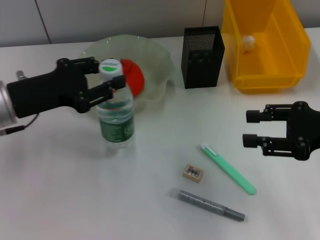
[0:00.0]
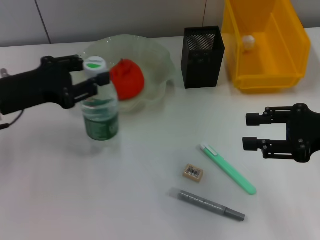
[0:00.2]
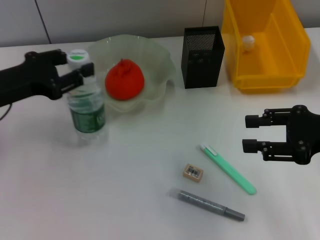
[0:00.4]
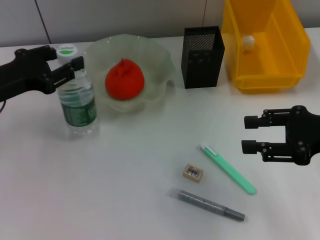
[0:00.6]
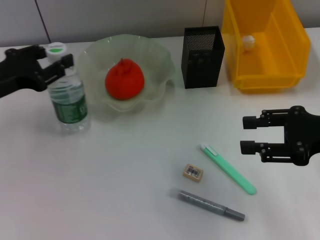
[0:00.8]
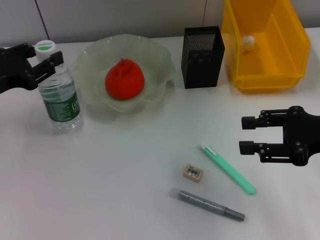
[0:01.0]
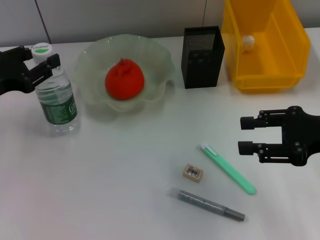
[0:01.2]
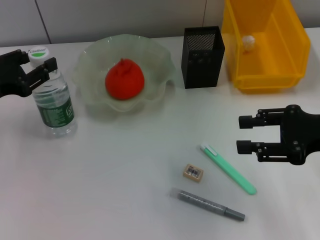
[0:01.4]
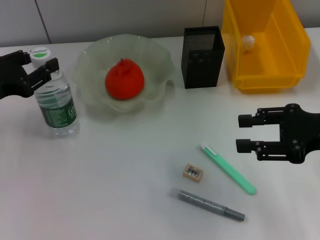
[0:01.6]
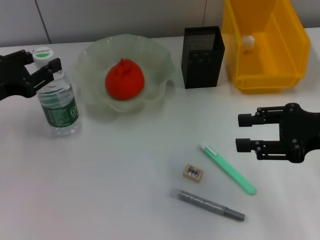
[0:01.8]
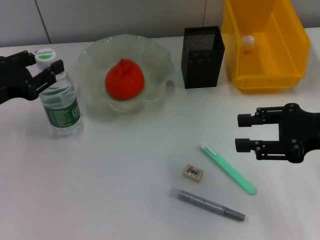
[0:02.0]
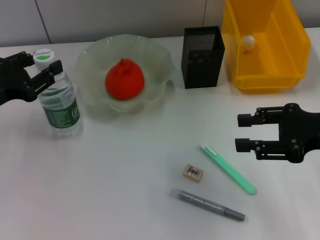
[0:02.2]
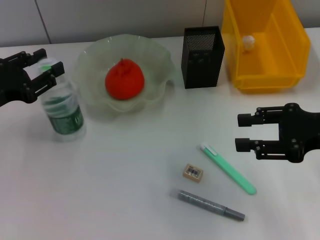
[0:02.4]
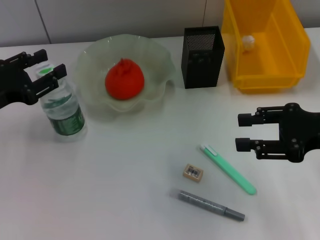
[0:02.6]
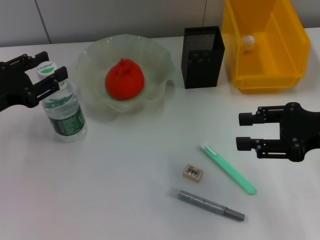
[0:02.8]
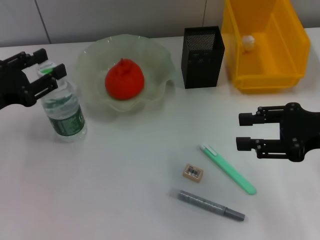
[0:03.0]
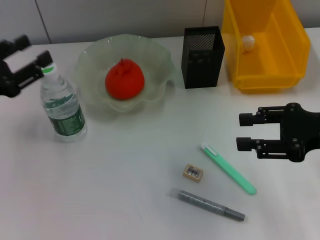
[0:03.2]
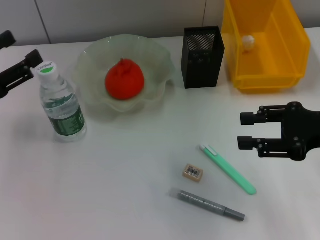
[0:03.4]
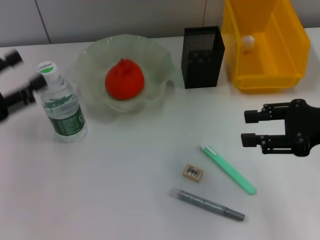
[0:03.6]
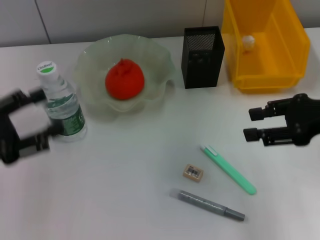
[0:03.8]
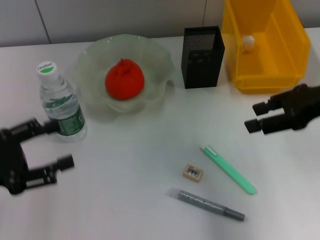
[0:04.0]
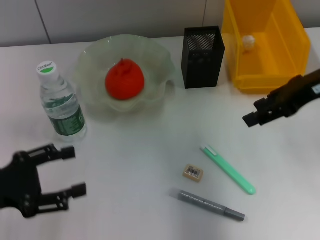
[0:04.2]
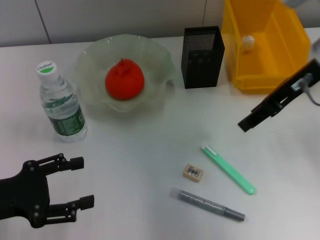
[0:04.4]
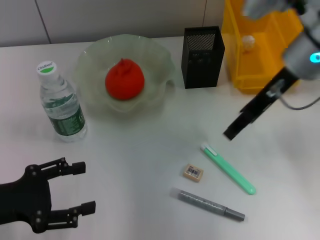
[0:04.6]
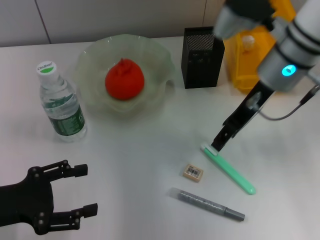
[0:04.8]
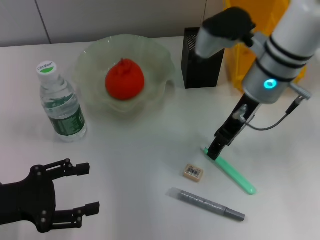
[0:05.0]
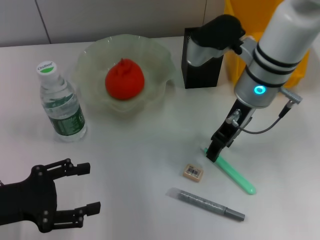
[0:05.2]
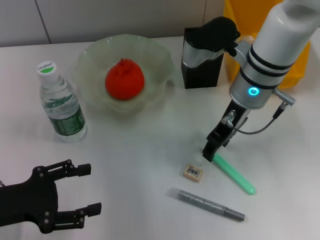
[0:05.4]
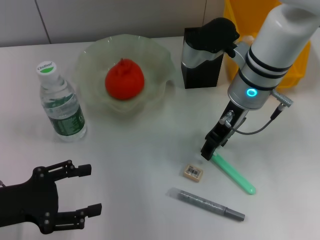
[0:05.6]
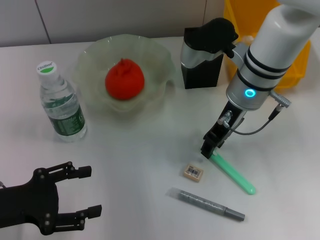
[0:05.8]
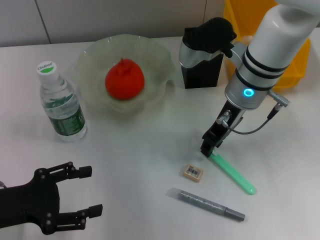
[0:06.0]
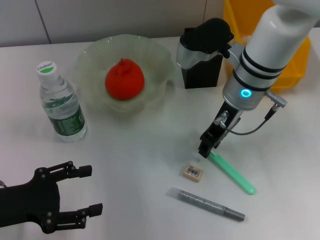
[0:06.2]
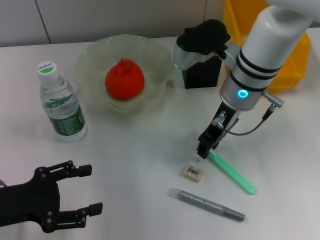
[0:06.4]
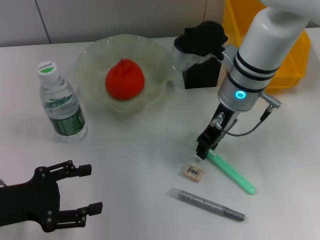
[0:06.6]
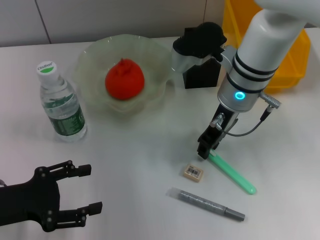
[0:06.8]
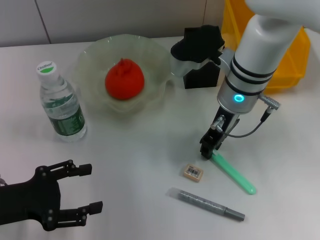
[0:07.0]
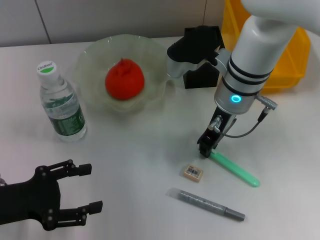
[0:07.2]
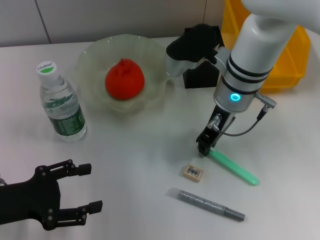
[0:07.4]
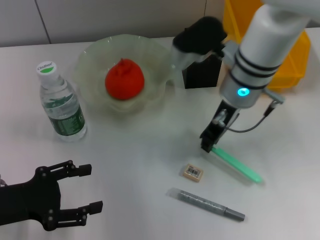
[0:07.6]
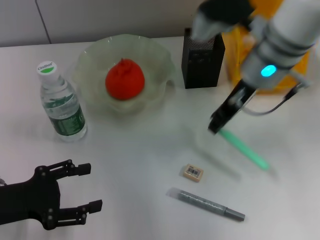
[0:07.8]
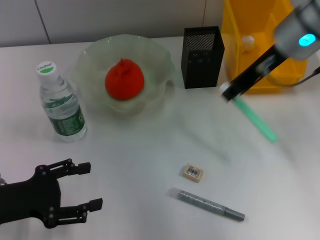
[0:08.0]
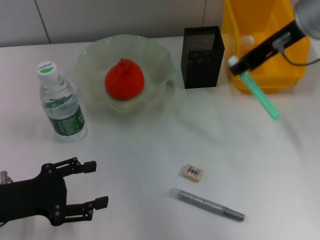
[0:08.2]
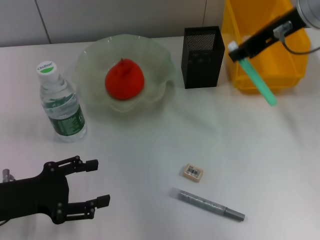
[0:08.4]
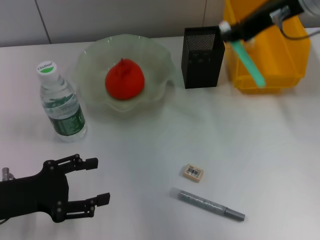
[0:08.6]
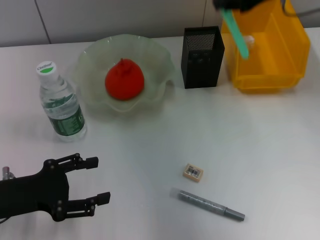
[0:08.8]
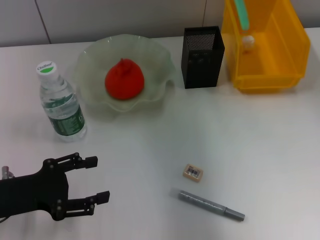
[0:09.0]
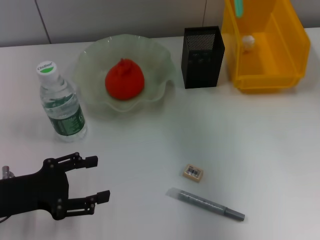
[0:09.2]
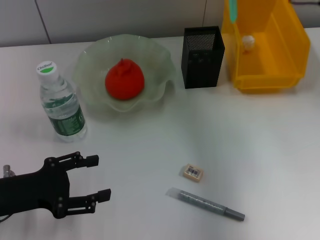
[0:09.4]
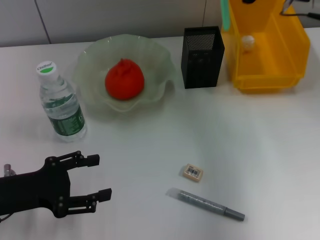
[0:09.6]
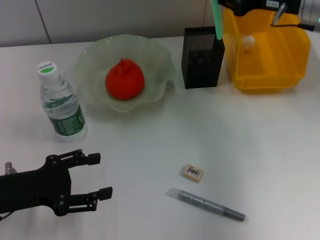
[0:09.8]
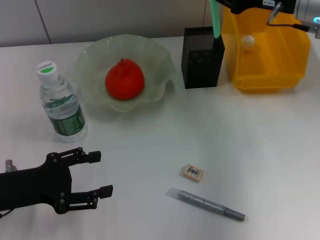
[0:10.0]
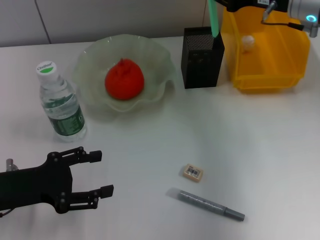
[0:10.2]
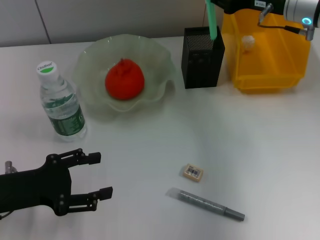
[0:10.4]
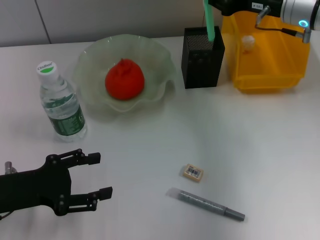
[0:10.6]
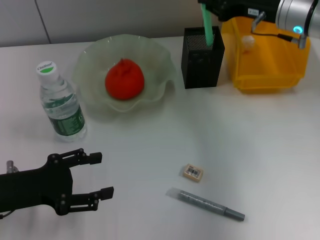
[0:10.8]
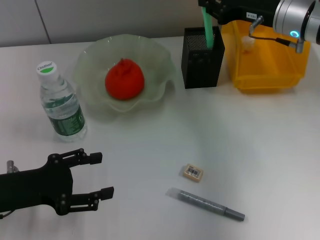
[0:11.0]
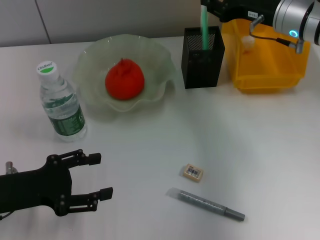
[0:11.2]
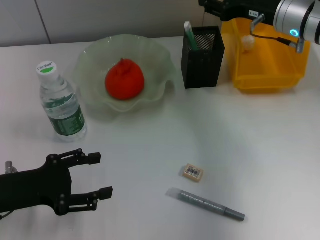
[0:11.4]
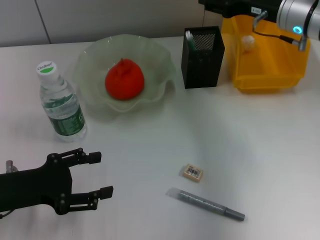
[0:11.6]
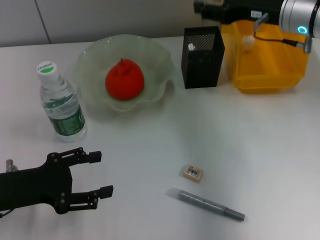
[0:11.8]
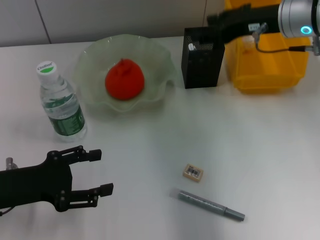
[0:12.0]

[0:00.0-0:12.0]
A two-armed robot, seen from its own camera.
Step, 0:00.0 to 0:02.6: Place the water bottle on the table with the left hand.
Step, 0:02.8 to 0:07.2: Grab the blue utility knife with the right hand.
Step, 0:07.6 to 0:11.4: Place the blue utility knife into the pen holder with the right hand.
0:00.0 to 0:01.6: The left gripper is displaced to the left by roughly 10 cm.
0:01.6 to 0:03.0: The grippers move only a little.
0:03.0 to 0:04.4: The right gripper moves forward, upward and to the left, about 15 cm, while the left gripper is displaced backward by approximately 10 cm.
0:04.4 to 0:06.0: The right gripper moves to the left and downward, about 10 cm.
0:06.0 to 0:07.6: The right gripper closes up.
0:07.6 to 0:09.0: The right gripper is displaced to the right and upward by about 20 cm.
0:09.0 to 0:10.4: The right gripper moves downward, about 10 cm.
0:10.4 to 0:12.0: The right gripper moves about 5 cm, and opens its fingers.

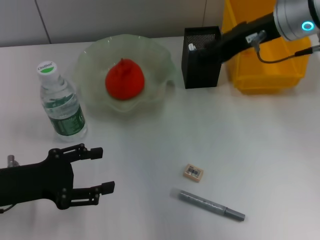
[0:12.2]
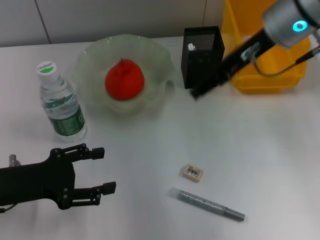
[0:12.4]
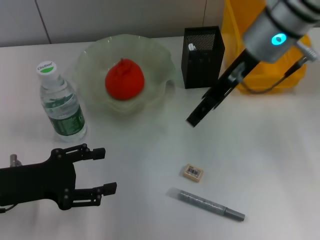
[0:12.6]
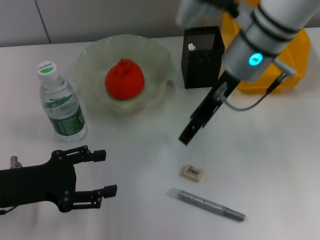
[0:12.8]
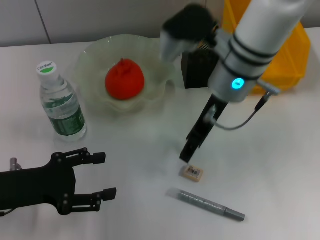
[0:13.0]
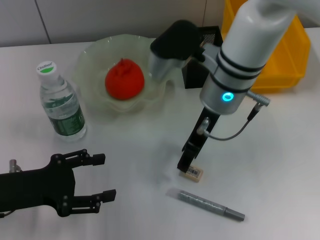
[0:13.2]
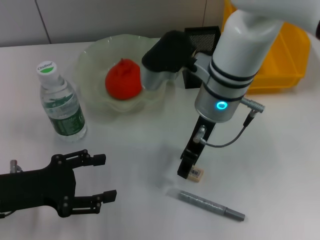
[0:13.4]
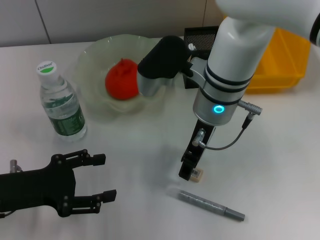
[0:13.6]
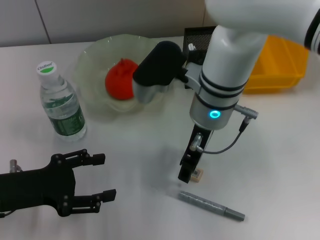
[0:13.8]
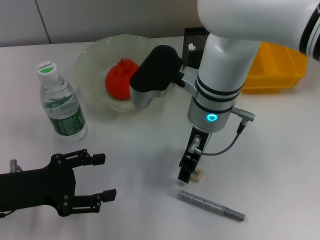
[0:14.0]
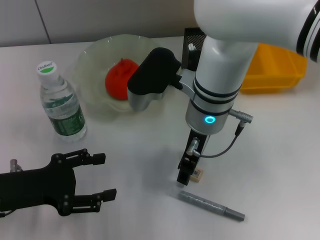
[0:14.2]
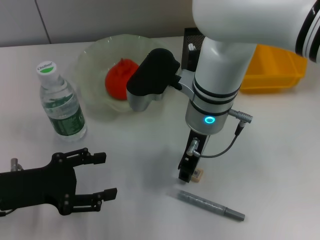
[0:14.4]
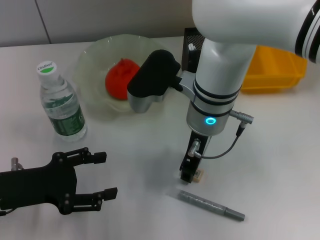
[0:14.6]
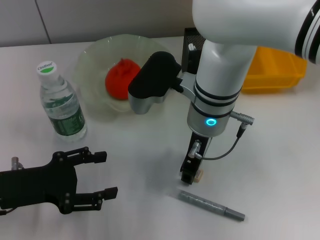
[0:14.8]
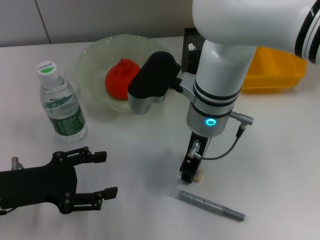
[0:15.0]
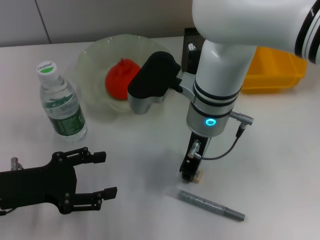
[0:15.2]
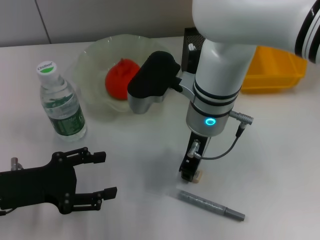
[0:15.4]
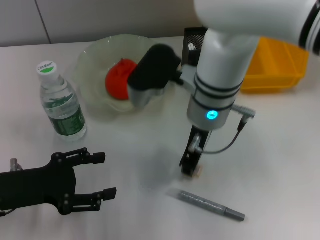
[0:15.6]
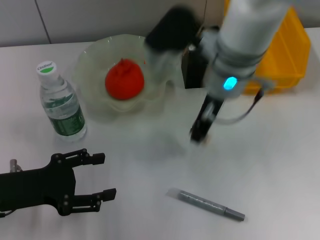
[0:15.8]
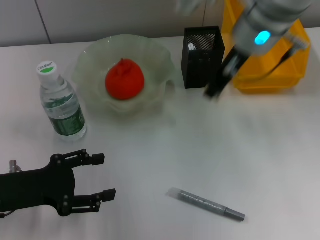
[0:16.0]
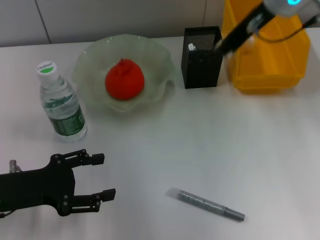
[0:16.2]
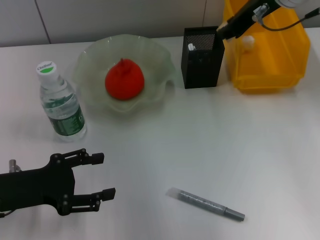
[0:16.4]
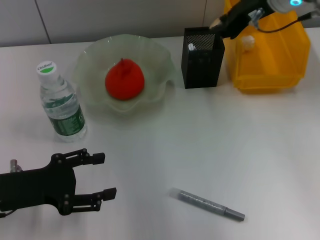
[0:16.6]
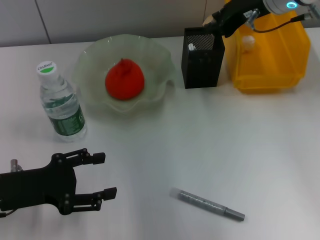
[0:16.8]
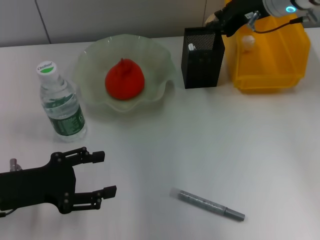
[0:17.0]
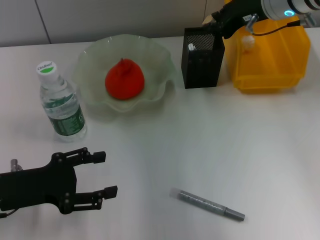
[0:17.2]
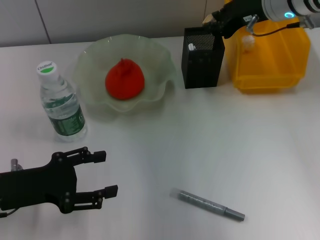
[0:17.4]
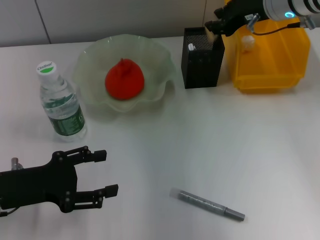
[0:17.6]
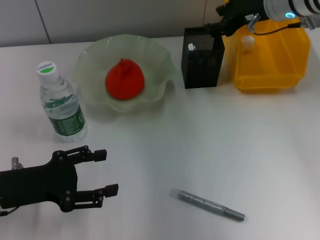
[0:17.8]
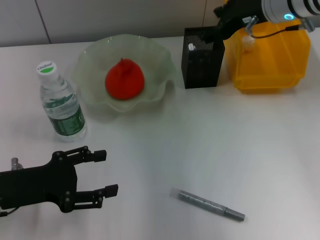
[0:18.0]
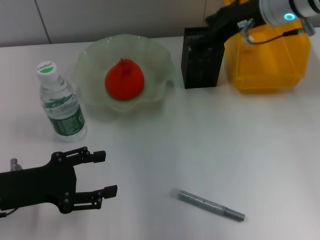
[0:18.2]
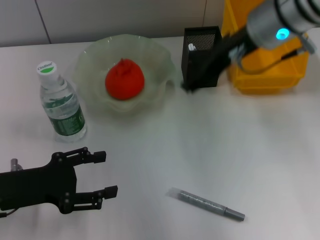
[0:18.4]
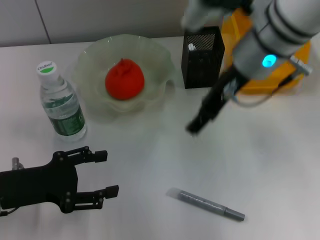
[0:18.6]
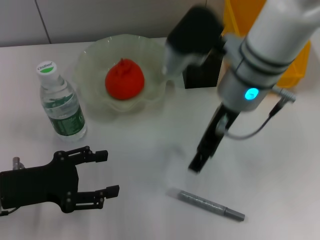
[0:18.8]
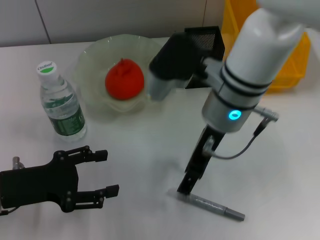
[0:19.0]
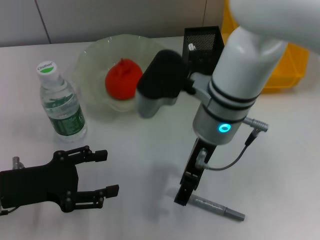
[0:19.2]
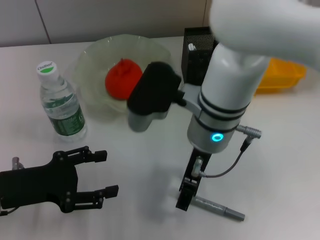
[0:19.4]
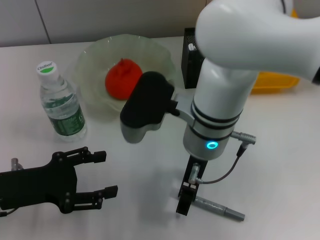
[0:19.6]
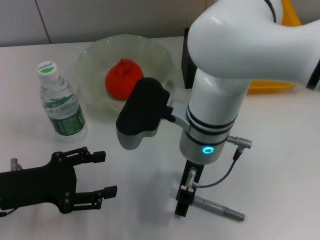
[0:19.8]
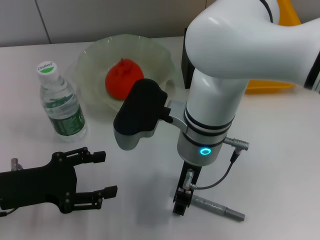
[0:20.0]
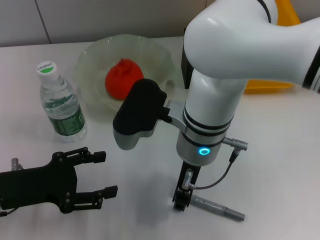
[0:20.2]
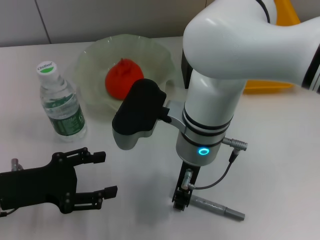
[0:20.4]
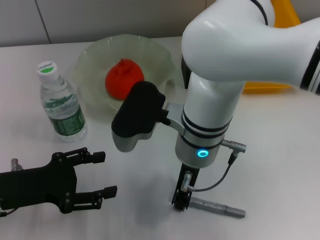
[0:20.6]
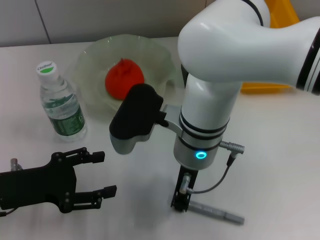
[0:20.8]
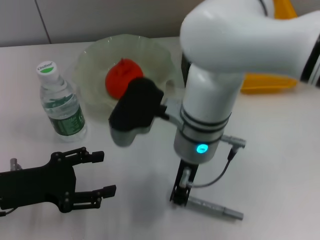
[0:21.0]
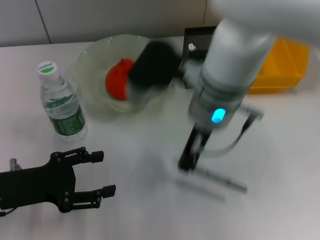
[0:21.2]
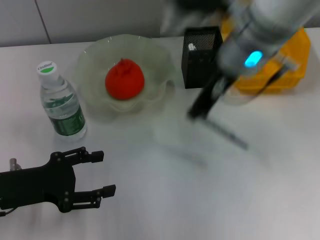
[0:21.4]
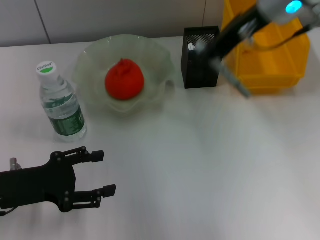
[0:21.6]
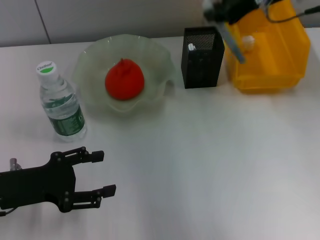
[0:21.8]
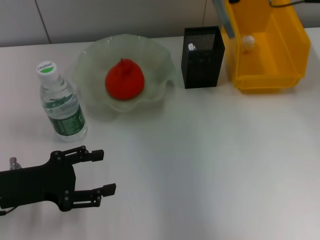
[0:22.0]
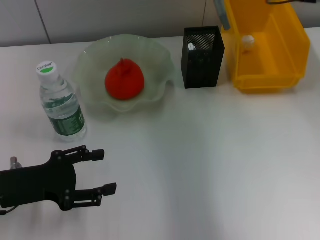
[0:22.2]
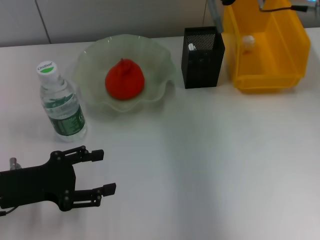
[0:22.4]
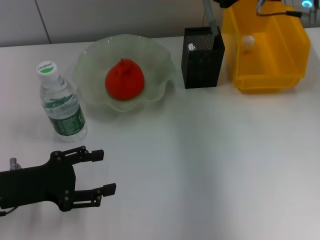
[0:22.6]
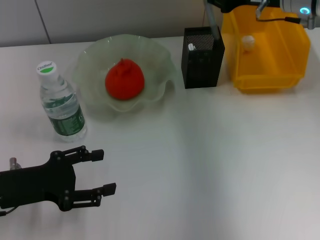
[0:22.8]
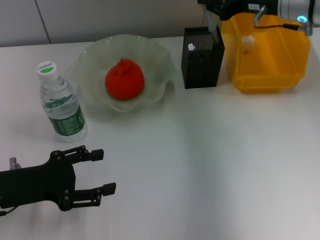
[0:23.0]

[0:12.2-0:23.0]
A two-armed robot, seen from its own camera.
Step, 0:12.2 to 0:15.4: Grab the eraser with the right hand.
Step, 0:15.6 to 0:17.8: Put the eraser into the pen holder with the right hand.
Step, 0:18.0 to 0:20.8: Grab the gray glue with the right hand.
0:12.2 to 0:13.8: The right gripper moves to the left and downward, some 15 cm.
0:13.8 to 0:15.2: The right gripper closes up.
0:15.2 to 0:16.8: The right gripper heads to the right, forward and upward, covering roughly 20 cm.
0:16.8 to 0:18.4: The right gripper goes roughly 5 cm backward, and opens its fingers.
0:18.4 to 0:20.0: The right gripper travels to the left, downward and backward by roughly 15 cm.
0:20.0 to 0:21.4: The right gripper goes roughly 10 cm upward, to the right and forward, and closes up.
0:21.4 to 0:23.0: The right gripper travels to the right and forward by some 15 cm.
